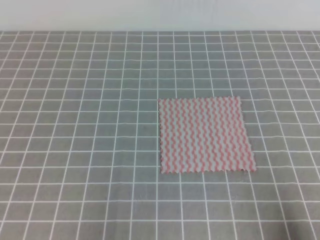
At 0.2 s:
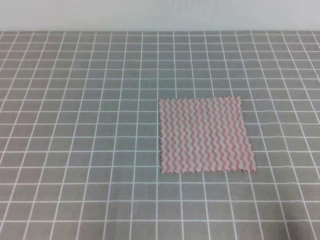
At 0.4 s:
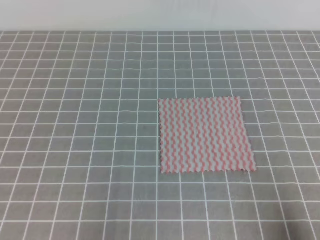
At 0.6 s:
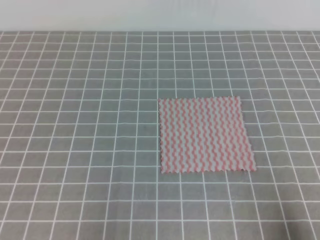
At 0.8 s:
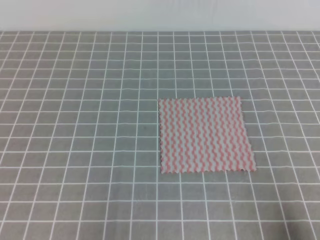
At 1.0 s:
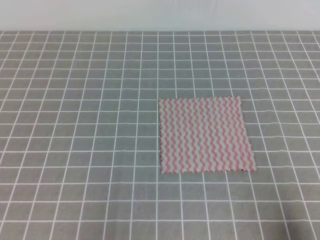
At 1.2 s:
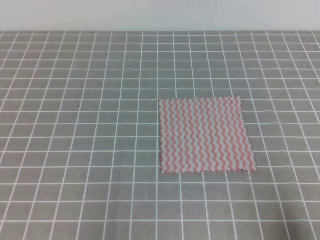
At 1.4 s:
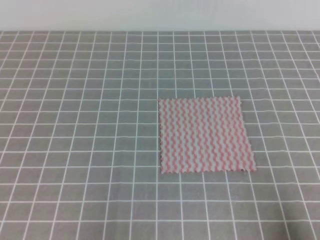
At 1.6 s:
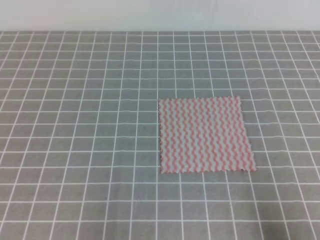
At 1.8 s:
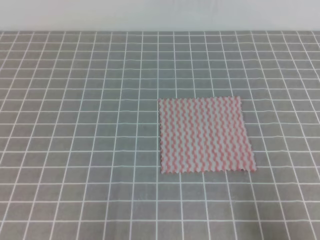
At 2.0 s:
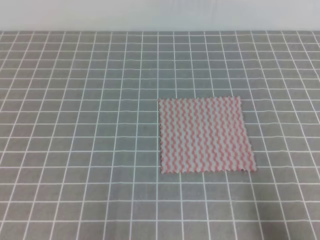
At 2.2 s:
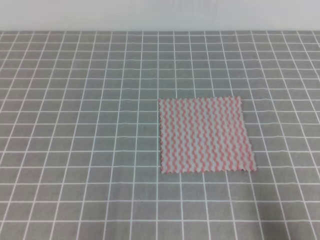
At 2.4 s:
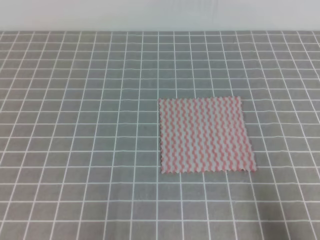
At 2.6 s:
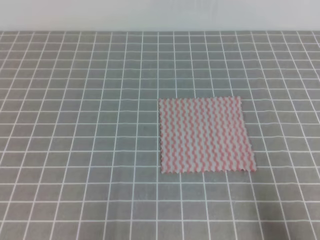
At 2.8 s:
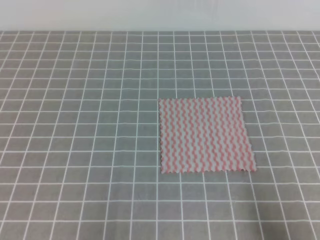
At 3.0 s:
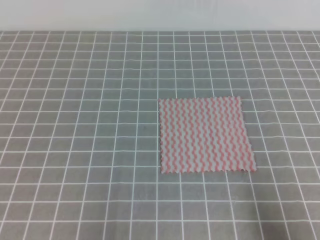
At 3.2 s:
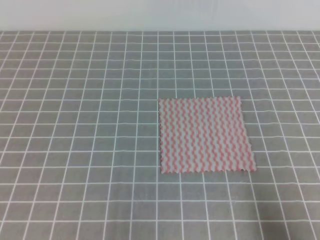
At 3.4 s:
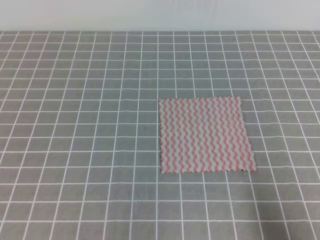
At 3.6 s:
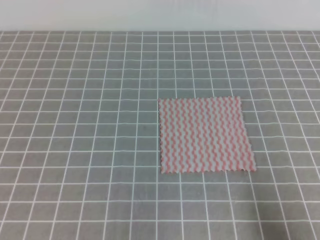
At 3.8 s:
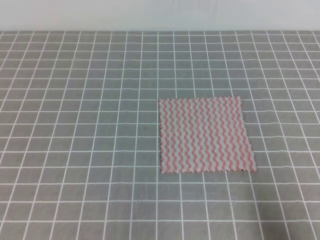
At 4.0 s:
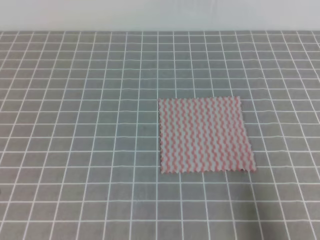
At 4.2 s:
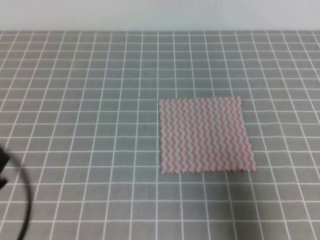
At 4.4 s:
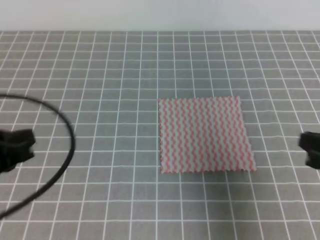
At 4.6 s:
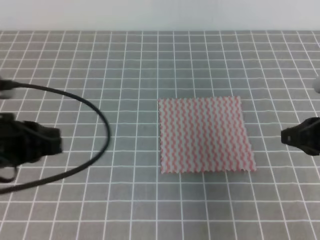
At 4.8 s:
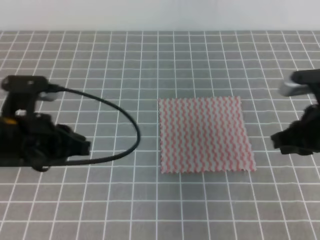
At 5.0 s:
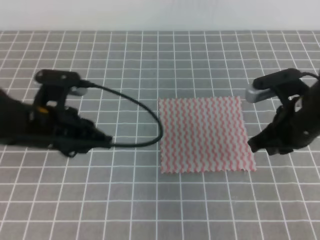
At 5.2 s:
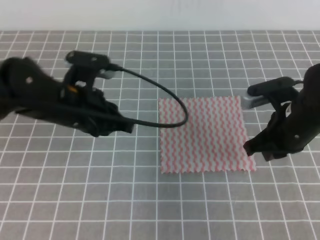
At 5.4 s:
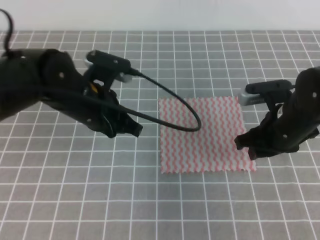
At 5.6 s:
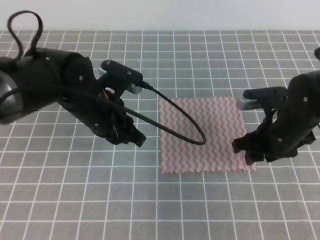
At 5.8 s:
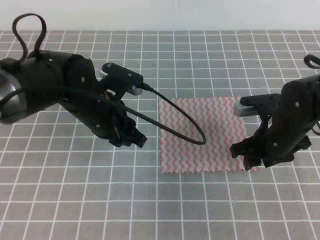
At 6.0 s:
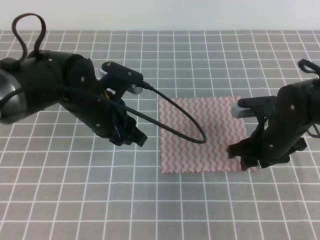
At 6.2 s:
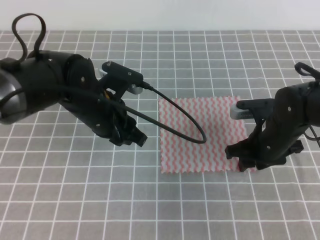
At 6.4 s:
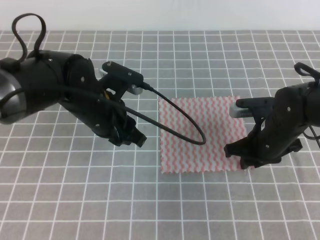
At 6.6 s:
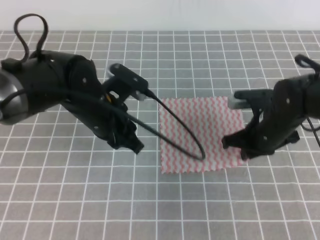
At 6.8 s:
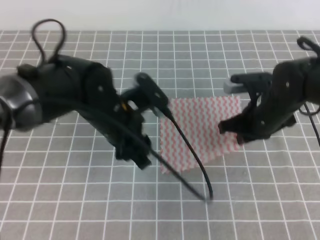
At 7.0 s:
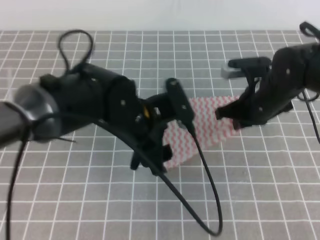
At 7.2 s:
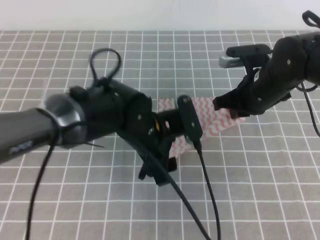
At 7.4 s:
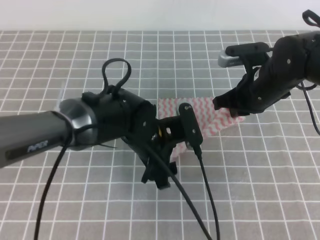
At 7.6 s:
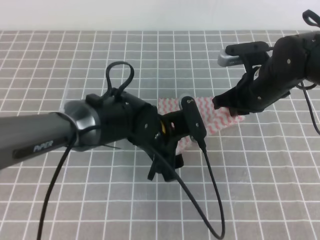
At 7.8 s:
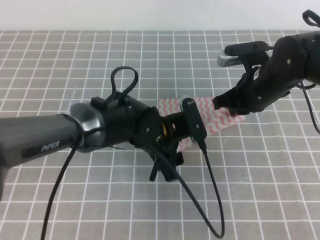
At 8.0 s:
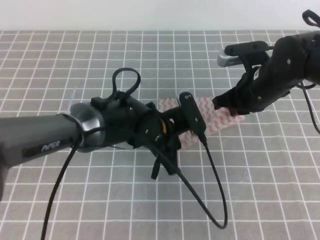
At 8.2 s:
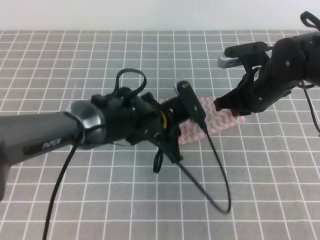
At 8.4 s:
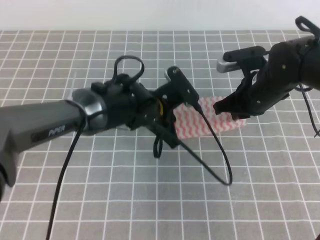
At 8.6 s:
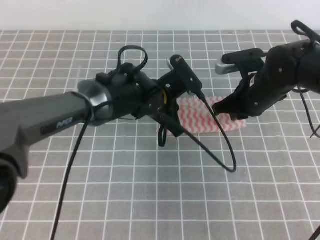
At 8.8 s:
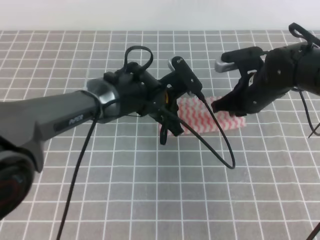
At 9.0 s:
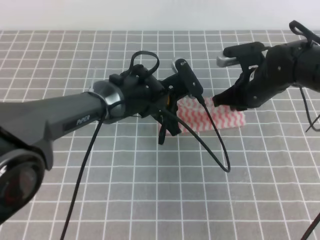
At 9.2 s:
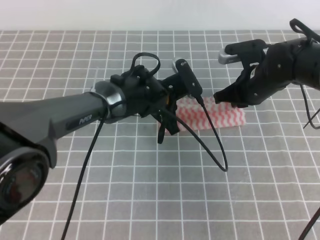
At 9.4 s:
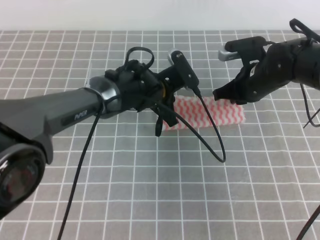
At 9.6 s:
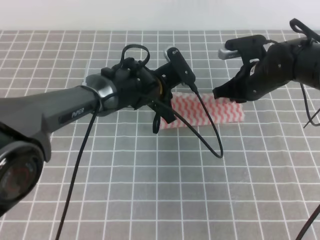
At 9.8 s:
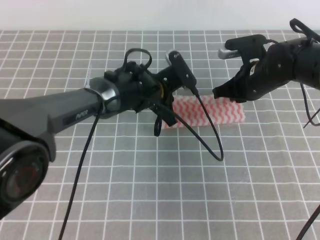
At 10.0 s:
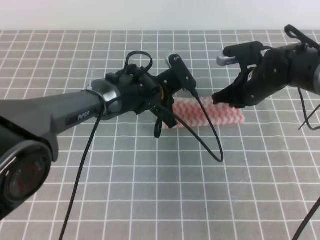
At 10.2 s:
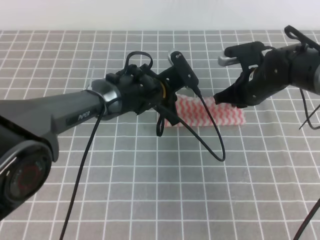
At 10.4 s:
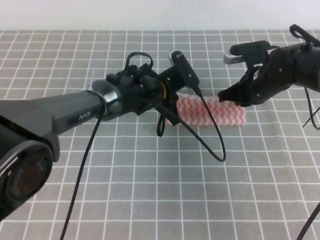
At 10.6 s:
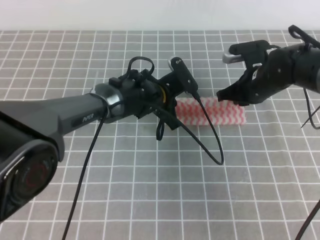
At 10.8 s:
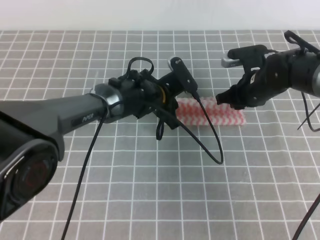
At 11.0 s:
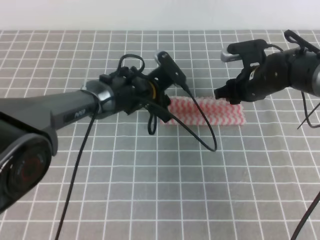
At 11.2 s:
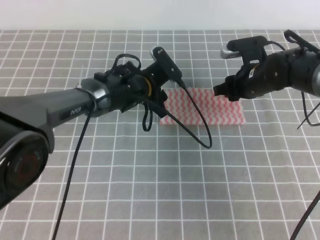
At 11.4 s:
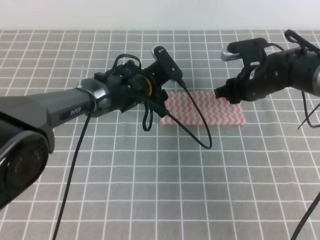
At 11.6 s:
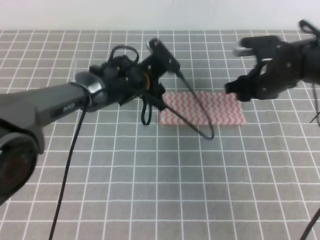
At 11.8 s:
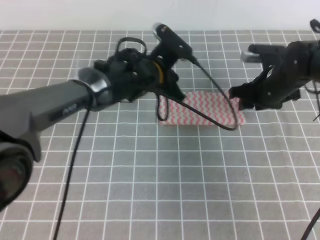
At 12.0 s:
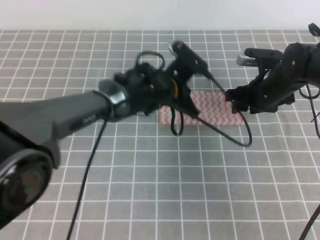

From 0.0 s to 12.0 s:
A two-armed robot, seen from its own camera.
Step, from 0.0 s to 6.8 s: Fold the towel upwards with the both gripper.
Step, from 7.0 s to 9.8 s: Fold the towel from right to left with the right gripper.
From 3.0 s to 4.4 s: The right gripper heads forward and upward, covering about 15 cm. Meanwhile the left gripper heads upward and forward, covering roughly 15 cm.
From 4.4 s to 6.0 s: The right gripper is displaced forward, downward and to the left by approximately 20 cm, and opens its fingers. Meanwhile the left gripper goes about 20 cm forward and to the right, and opens its fingers.
From 6.0 s to 7.6 s: The right gripper goes about 5 cm upward, and closes. Meanwhile the left gripper shifts about 10 cm to the right and downward, and opens its fingers.
From 7.6 s to 9.0 s: The left gripper travels forward by approximately 10 cm, and closes.
From 9.0 s to 10.4 s: The grippers make only small movements.
From 10.4 s to 12.0 s: The left gripper opens, then closes again, while the right gripper opens up.

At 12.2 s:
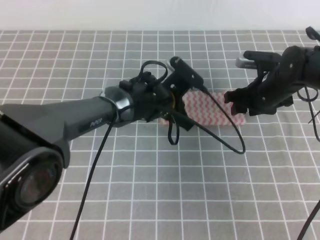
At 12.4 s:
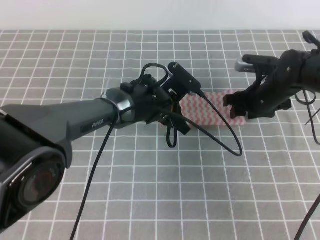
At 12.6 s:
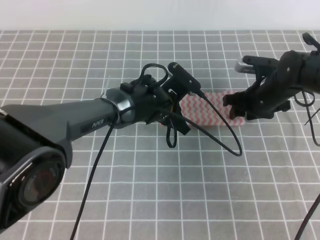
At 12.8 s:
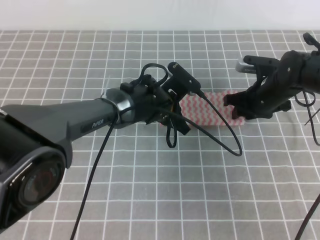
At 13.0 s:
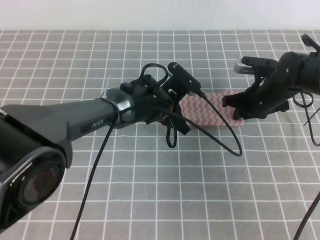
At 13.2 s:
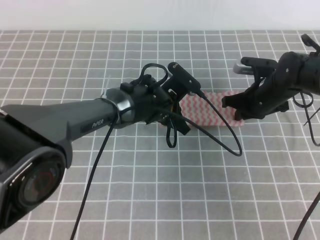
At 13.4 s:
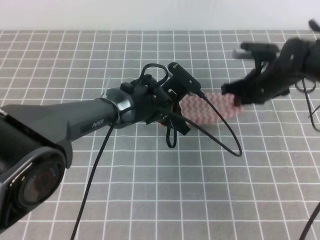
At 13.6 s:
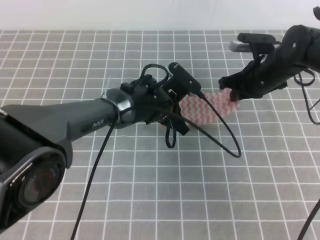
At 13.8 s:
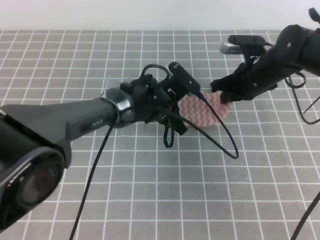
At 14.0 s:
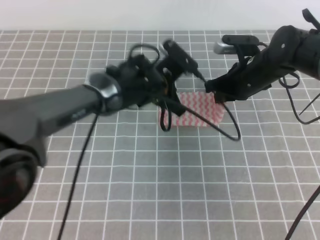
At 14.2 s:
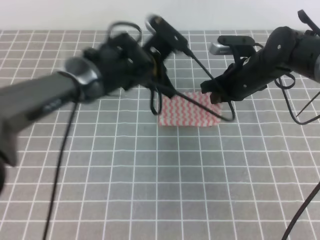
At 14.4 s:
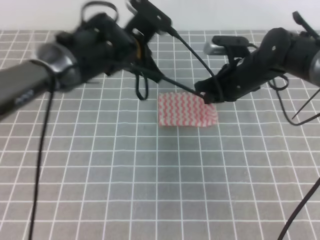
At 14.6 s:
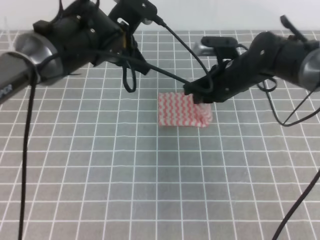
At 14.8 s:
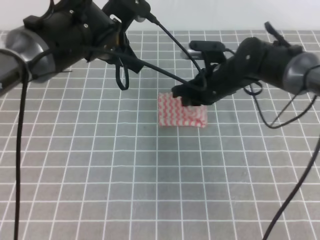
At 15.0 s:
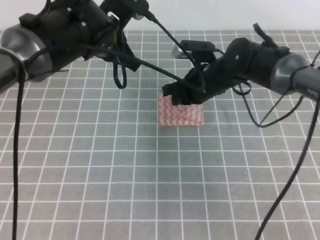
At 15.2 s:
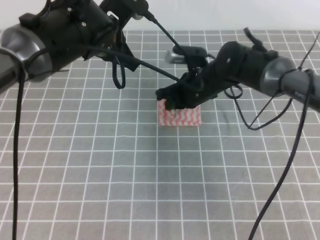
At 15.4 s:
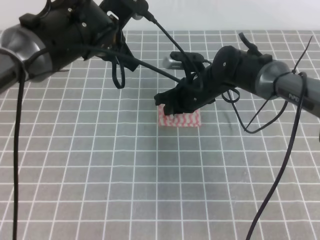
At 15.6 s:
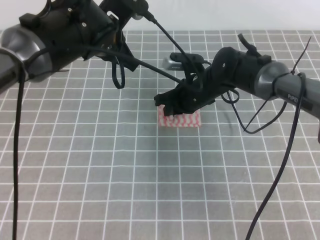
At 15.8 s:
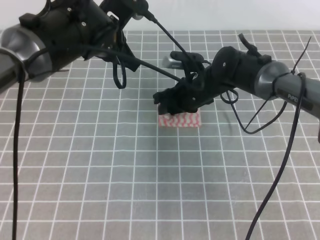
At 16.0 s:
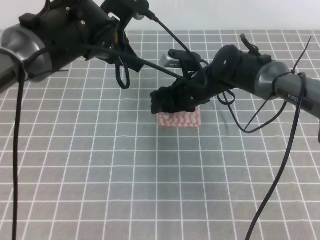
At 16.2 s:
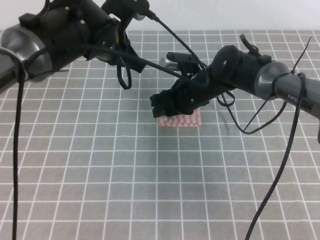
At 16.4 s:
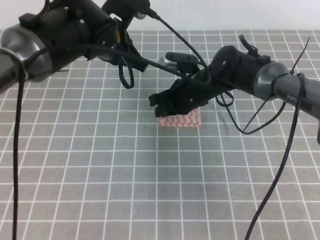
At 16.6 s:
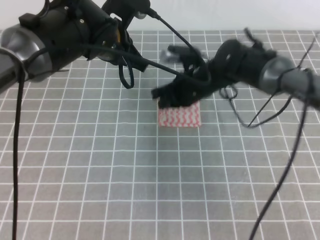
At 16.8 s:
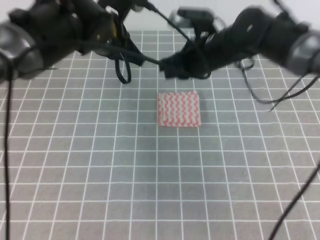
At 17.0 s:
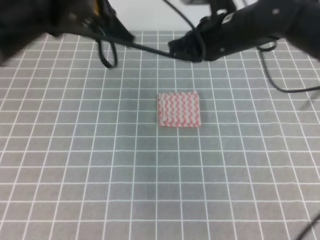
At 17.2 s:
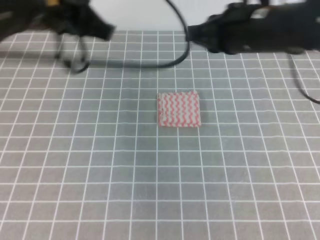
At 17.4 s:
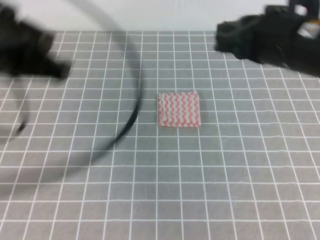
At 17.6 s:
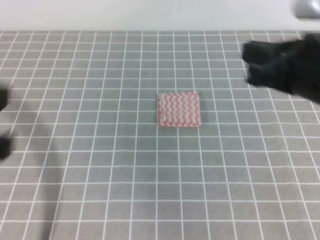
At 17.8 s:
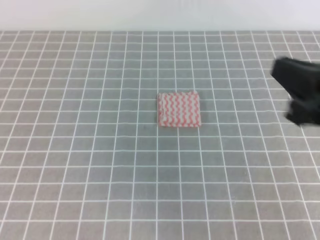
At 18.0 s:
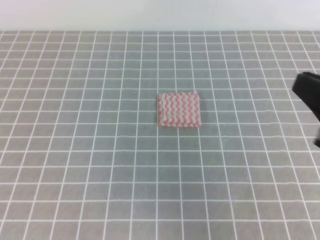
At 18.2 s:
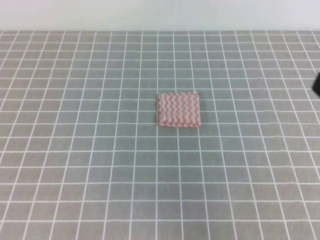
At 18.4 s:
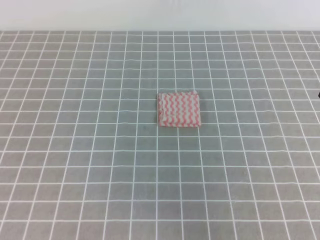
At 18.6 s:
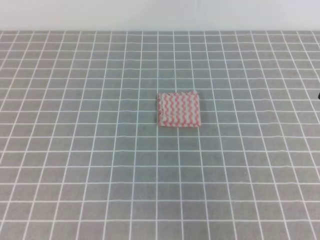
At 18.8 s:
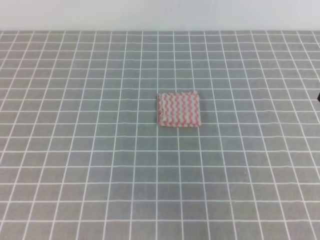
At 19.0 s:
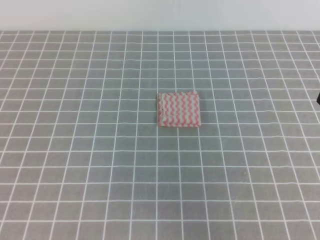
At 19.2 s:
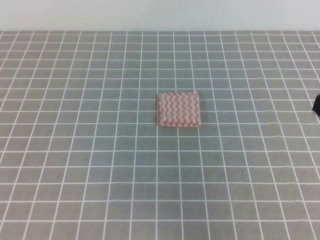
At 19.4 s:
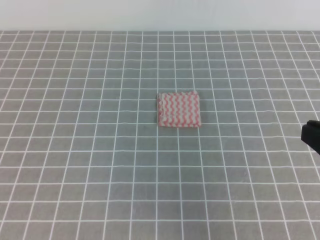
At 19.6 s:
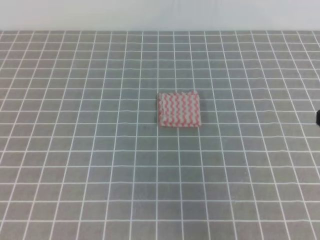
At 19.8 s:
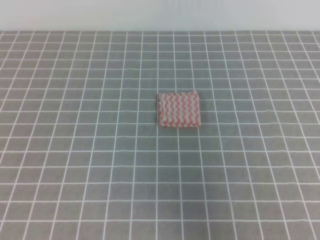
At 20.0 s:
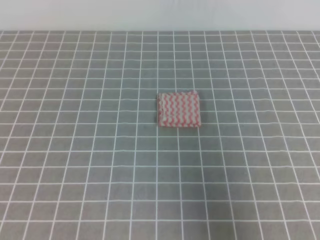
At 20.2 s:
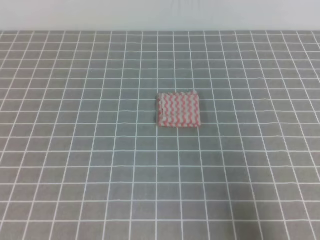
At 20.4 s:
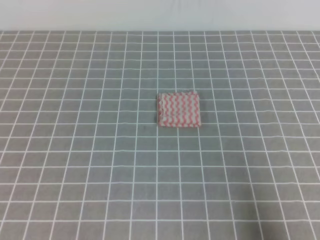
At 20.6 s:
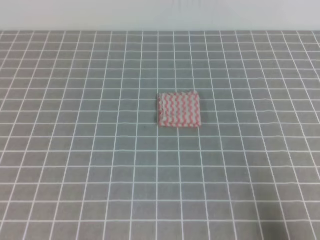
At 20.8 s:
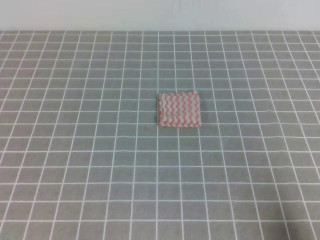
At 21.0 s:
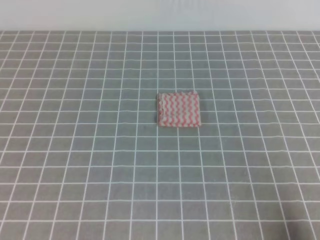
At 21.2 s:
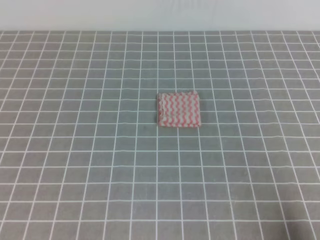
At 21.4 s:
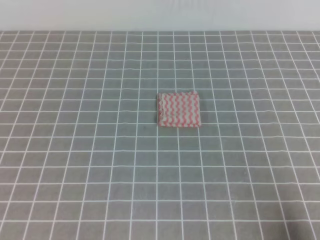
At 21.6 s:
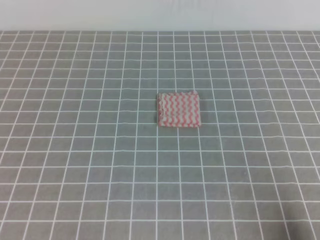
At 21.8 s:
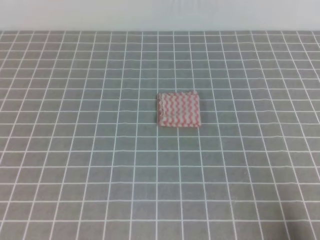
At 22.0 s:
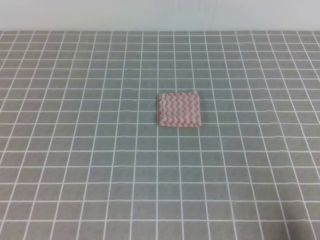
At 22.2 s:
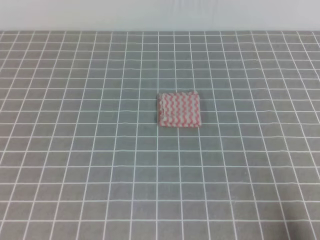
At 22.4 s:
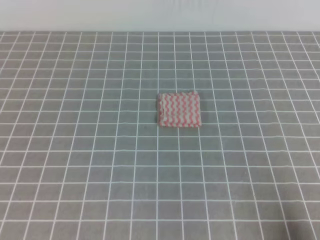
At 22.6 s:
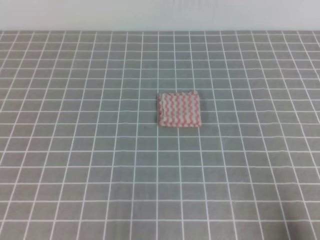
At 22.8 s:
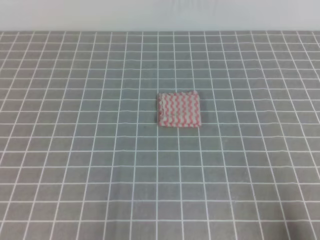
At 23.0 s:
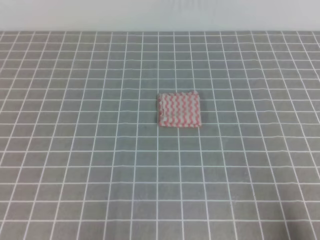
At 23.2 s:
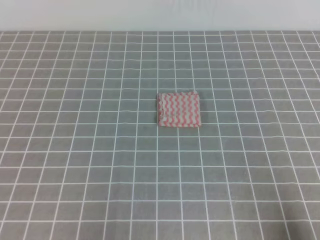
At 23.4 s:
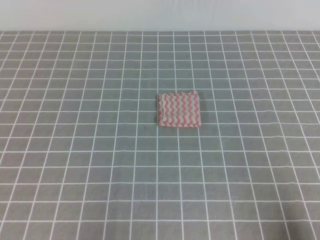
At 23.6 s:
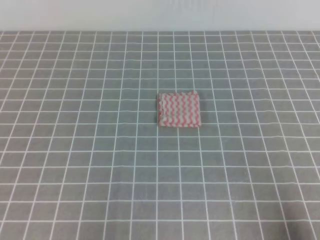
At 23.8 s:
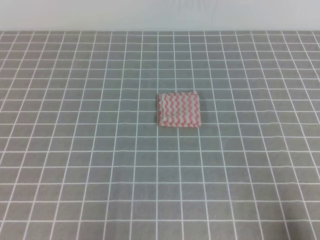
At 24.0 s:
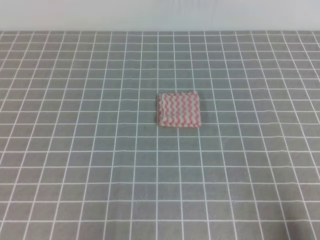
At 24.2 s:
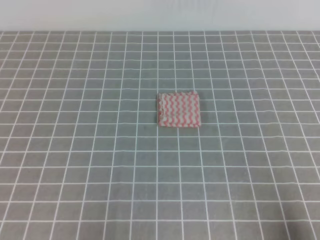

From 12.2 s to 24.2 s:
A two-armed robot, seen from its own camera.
From 12.2 s to 13.8 s: The right gripper closes its fingers.
From 13.8 s to 15.2 s: The left gripper shifts some 15 cm upward and to the left. Meanwhile the right gripper moves to the left, about 10 cm.
From 15.2 s to 16.6 s: The right gripper opens, then closes again.
From 16.6 s to 18.2 s: The left gripper moves backward and to the left, roughly 40 cm. The right gripper shifts some 40 cm backward, to the right and upward.
From 19.8 s to 21.2 s: The right gripper heads downward, covering some 15 cm.
